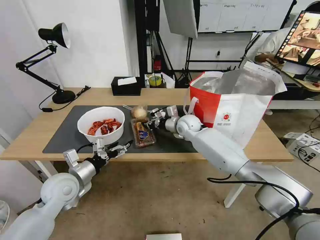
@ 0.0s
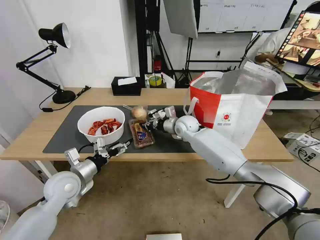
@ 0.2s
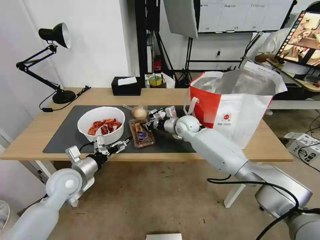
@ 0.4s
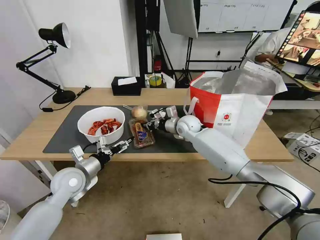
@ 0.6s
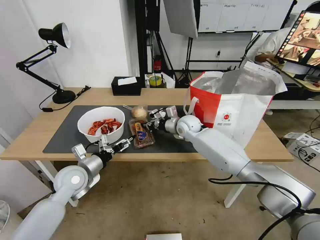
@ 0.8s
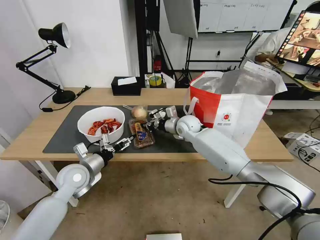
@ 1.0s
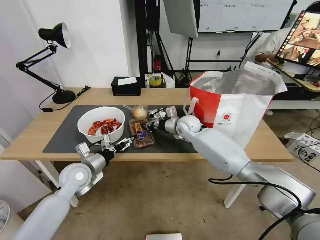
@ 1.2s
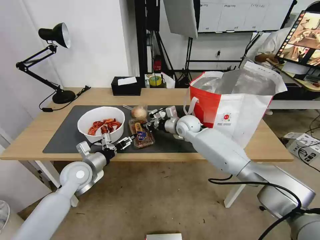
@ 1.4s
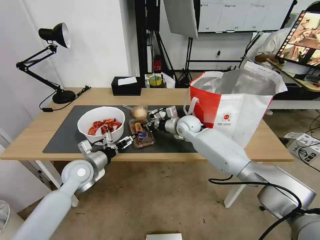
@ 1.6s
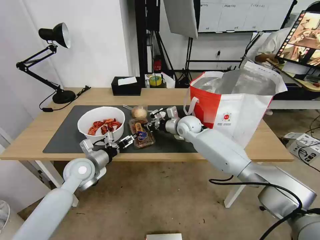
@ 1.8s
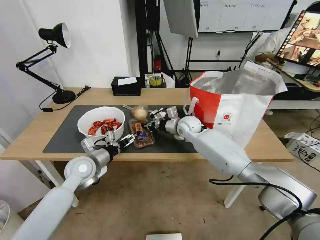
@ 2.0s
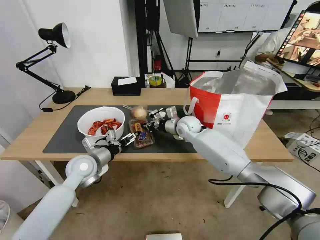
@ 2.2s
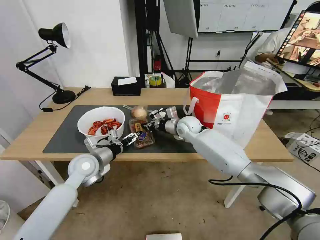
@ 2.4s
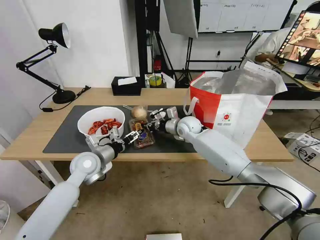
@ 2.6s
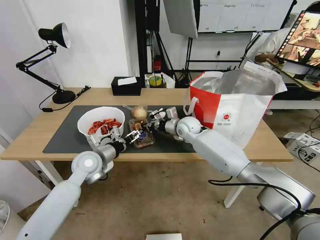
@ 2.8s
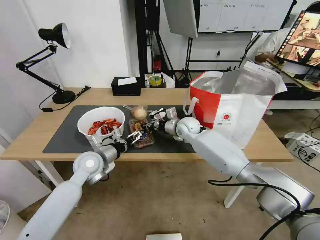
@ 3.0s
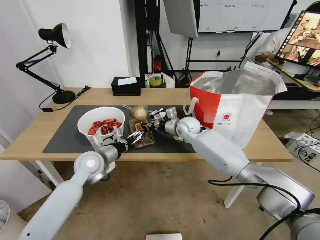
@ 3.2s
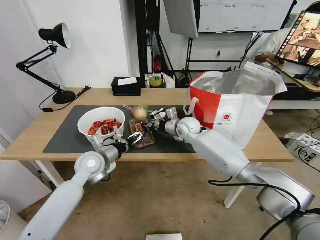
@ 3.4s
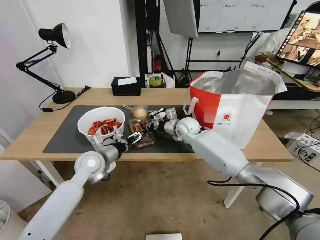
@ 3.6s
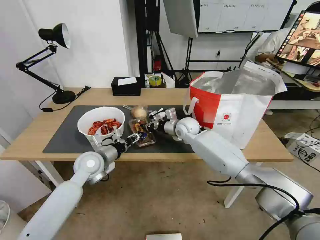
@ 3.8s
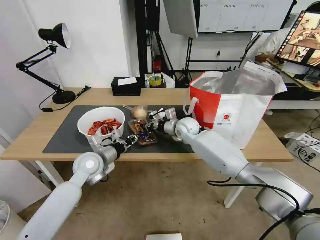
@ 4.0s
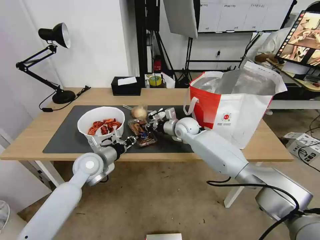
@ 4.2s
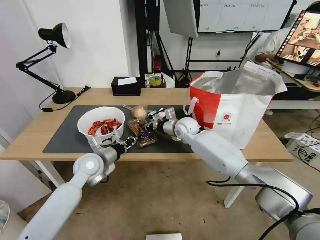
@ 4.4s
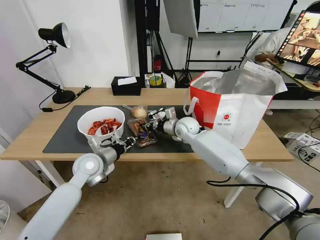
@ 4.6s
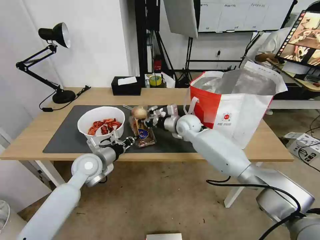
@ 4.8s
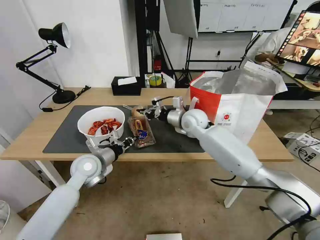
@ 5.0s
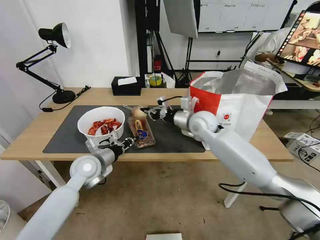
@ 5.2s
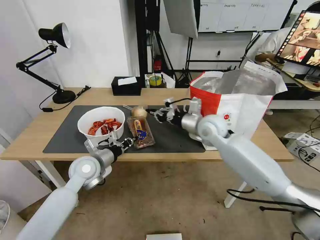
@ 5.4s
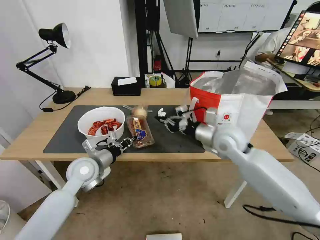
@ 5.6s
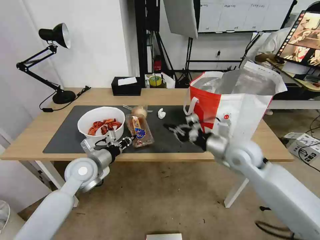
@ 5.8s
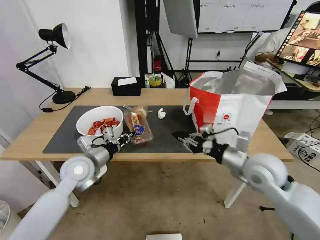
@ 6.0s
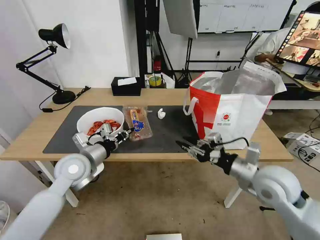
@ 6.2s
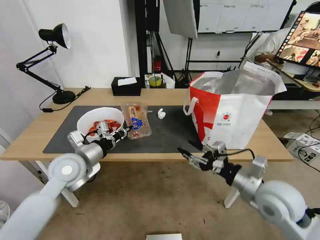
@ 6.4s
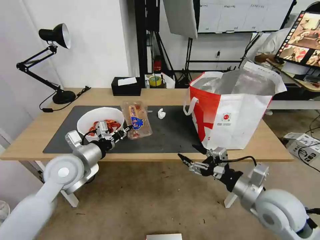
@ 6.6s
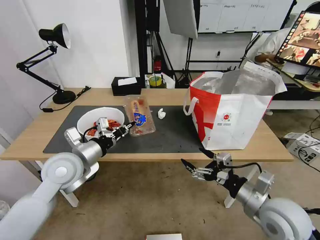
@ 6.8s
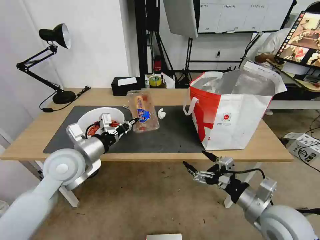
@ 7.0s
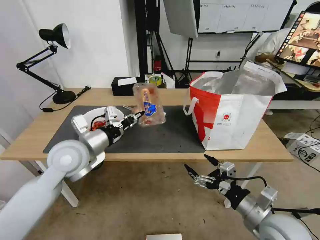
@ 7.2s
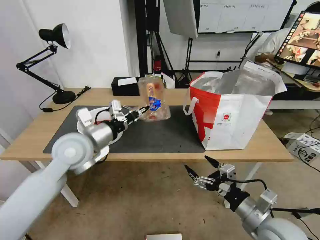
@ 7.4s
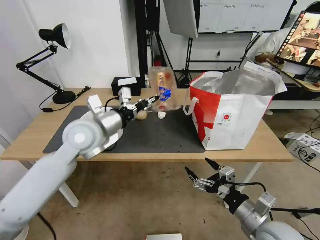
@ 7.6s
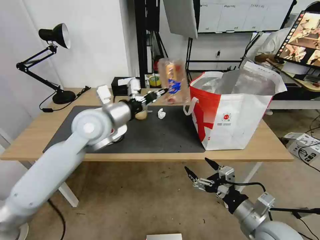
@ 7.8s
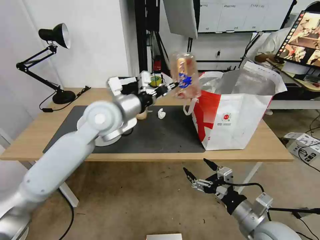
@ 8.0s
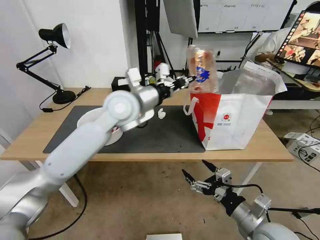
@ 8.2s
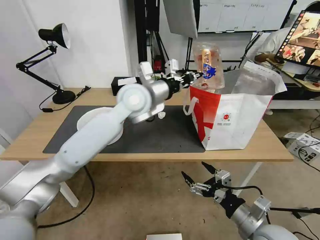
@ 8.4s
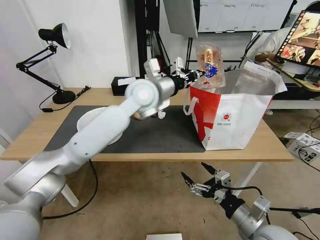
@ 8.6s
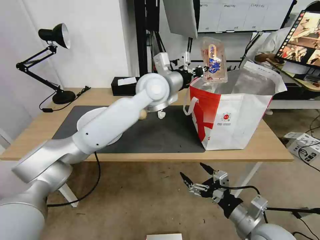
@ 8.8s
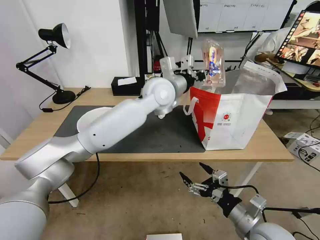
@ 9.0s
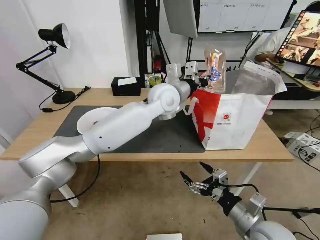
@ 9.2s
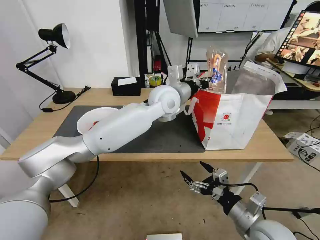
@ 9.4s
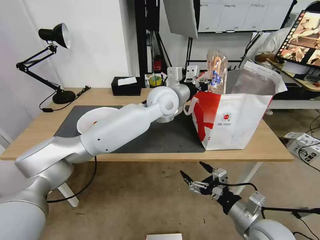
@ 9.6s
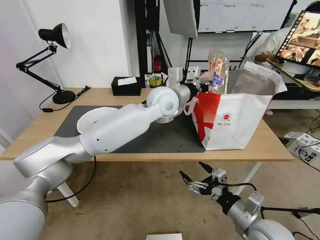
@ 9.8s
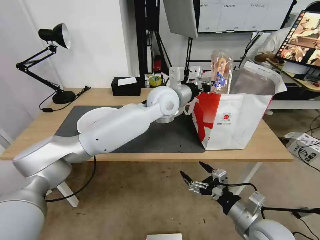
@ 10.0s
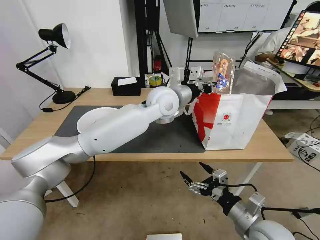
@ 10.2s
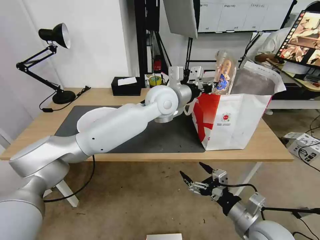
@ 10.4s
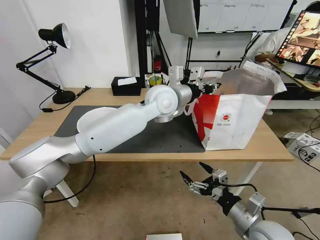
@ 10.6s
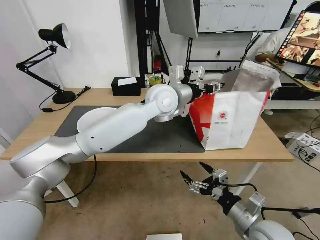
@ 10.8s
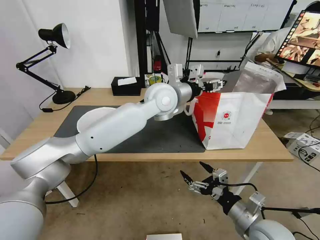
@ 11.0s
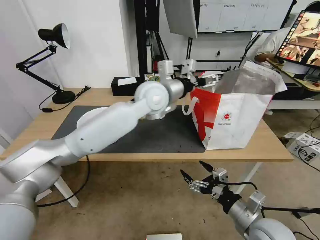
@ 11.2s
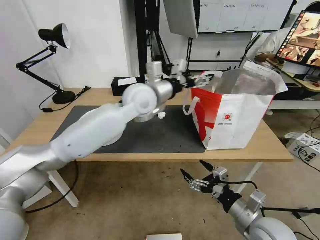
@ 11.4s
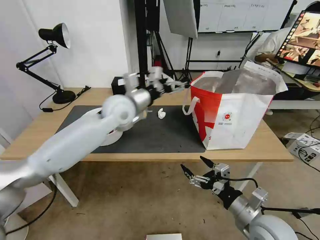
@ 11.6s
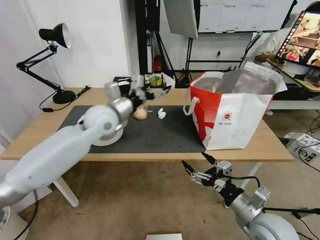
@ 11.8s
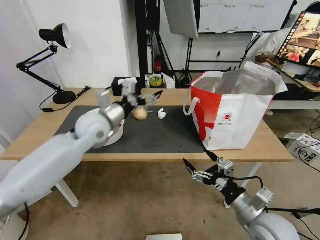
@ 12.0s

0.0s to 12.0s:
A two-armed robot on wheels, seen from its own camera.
Task of the whole recording: Pick up the trash from the table and place it into the takeout bag.
0.0s to 1.6s: The left gripper is displaced forward by about 5 cm.
1.6s to 3.0s: The grippers move only a little.
3.0s to 4.4s: The left gripper closes up.
4.4s to 6.0s: The right gripper is displaced backward and to the right by roughly 30 cm.
6.0s to 7.6s: The right gripper heads backward and downward, covering some 15 cm, and opens its fingers. The left gripper travels upward by some 10 cm.
7.6s to 9.0s: The left gripper is displaced to the right and forward by some 25 cm.
9.0s to 10.4s: The grippers make only small movements.
10.4s to 12.0s: The left gripper shifts some 20 cm to the left, and opens.

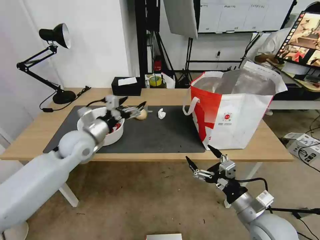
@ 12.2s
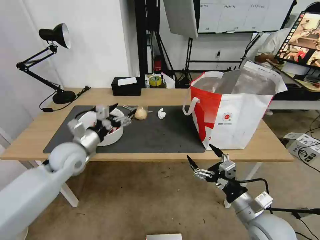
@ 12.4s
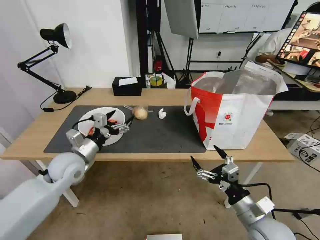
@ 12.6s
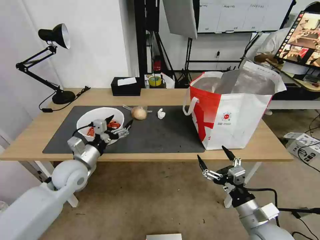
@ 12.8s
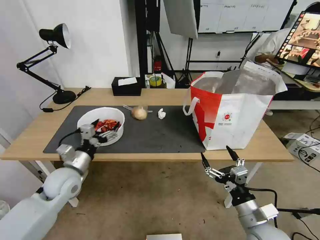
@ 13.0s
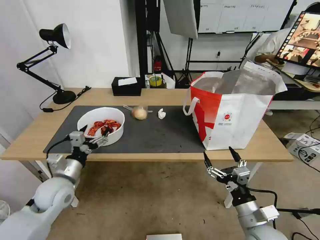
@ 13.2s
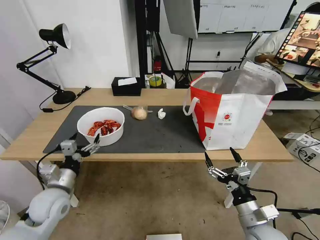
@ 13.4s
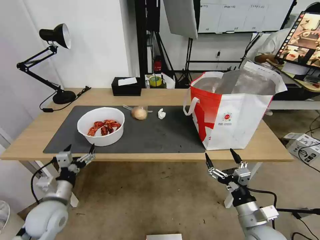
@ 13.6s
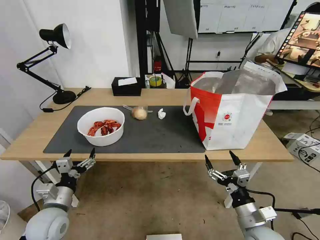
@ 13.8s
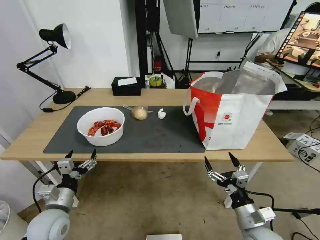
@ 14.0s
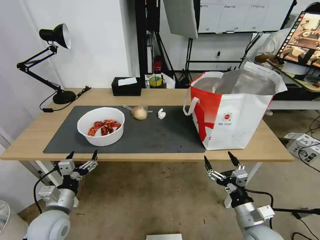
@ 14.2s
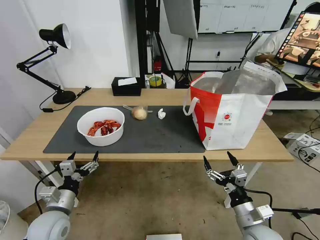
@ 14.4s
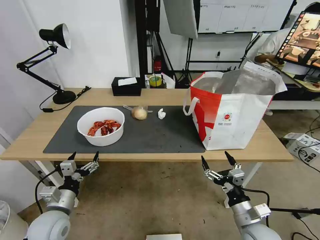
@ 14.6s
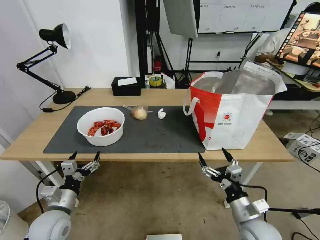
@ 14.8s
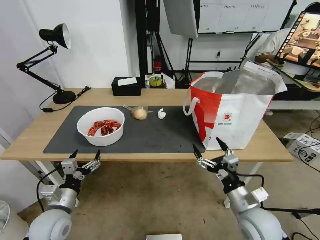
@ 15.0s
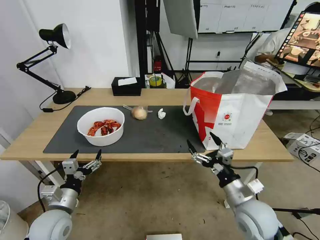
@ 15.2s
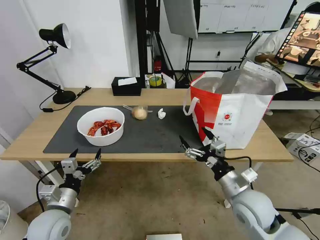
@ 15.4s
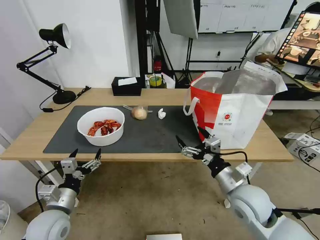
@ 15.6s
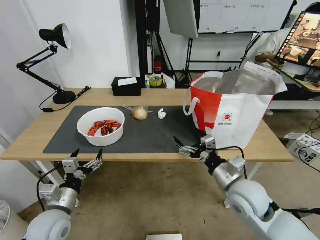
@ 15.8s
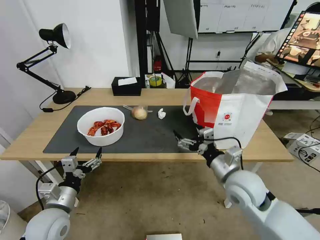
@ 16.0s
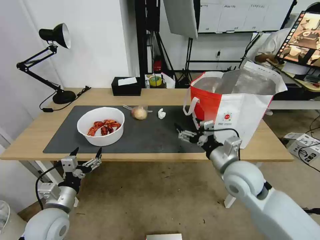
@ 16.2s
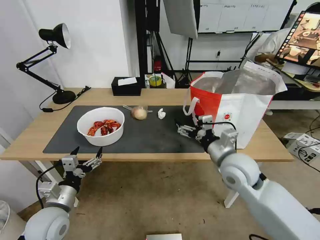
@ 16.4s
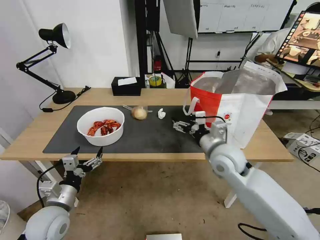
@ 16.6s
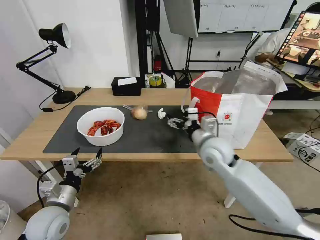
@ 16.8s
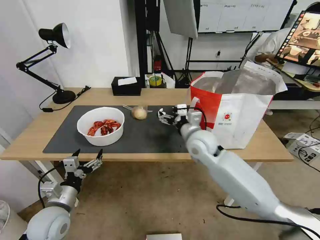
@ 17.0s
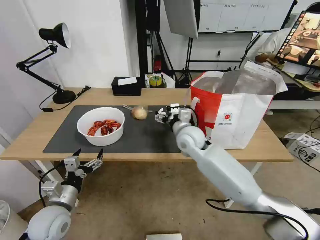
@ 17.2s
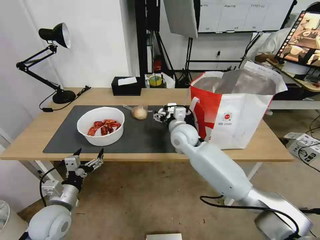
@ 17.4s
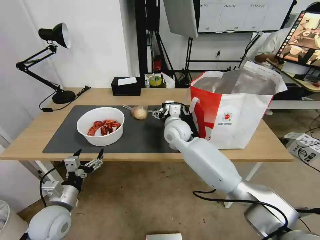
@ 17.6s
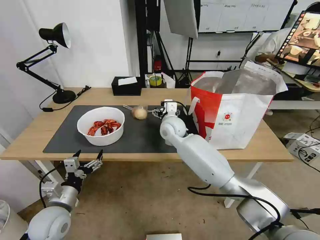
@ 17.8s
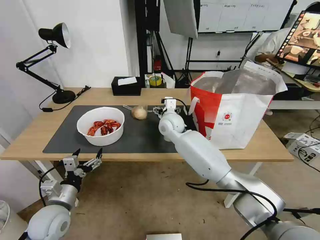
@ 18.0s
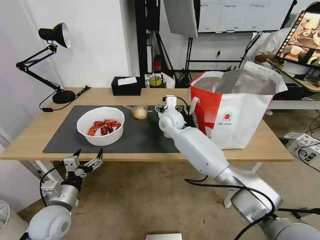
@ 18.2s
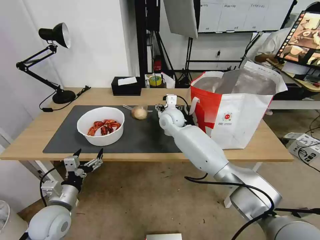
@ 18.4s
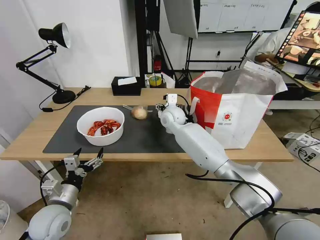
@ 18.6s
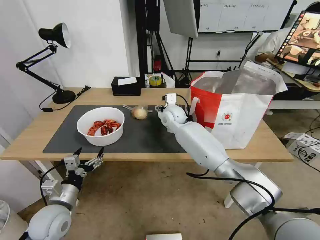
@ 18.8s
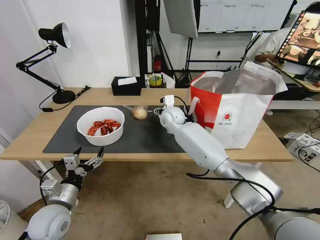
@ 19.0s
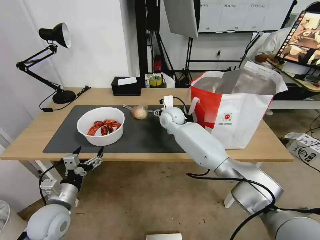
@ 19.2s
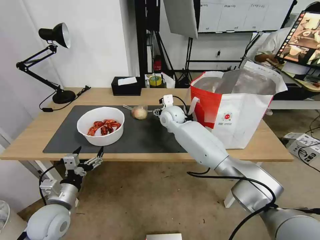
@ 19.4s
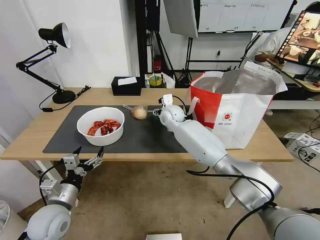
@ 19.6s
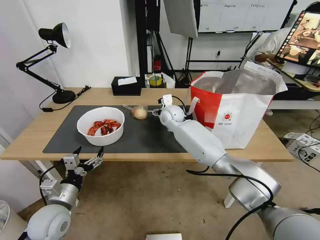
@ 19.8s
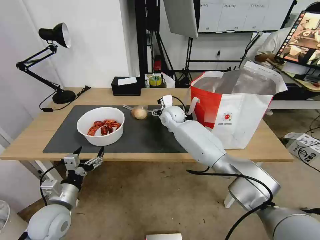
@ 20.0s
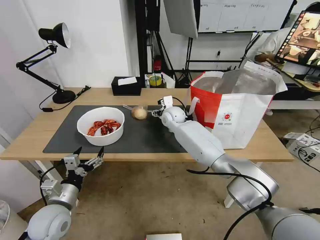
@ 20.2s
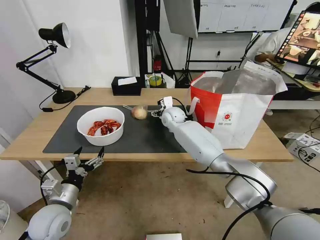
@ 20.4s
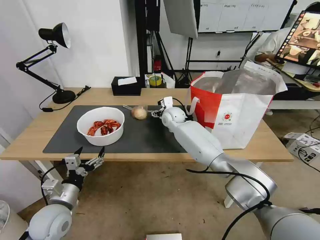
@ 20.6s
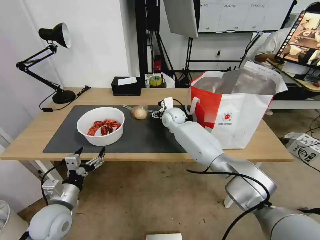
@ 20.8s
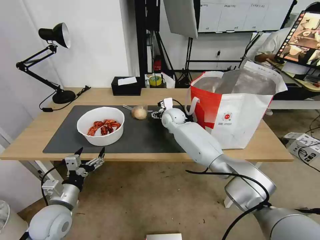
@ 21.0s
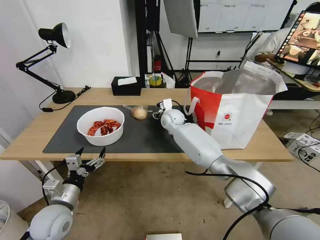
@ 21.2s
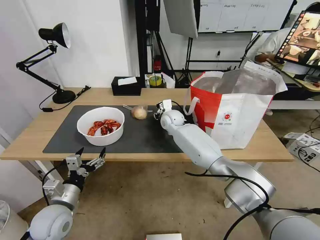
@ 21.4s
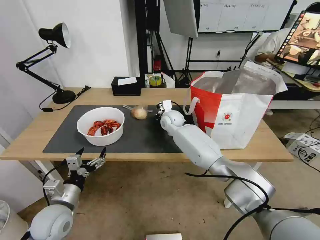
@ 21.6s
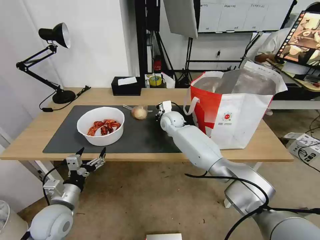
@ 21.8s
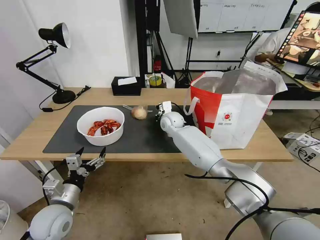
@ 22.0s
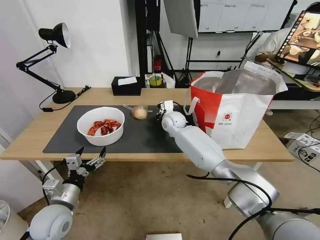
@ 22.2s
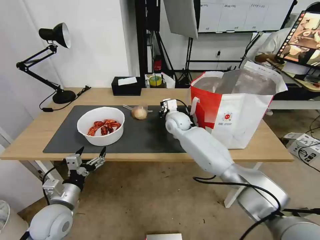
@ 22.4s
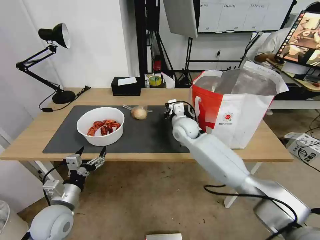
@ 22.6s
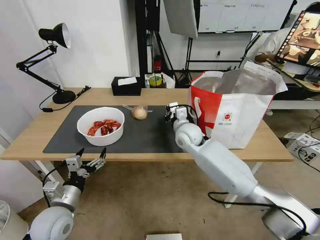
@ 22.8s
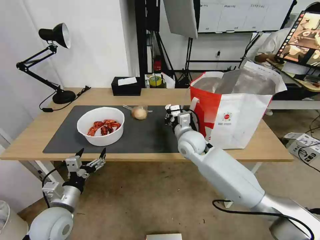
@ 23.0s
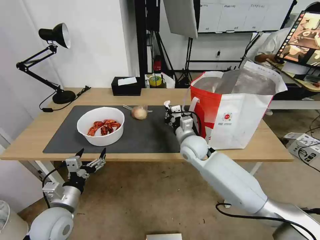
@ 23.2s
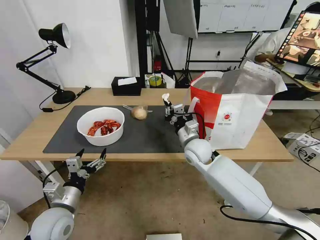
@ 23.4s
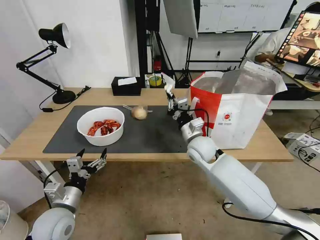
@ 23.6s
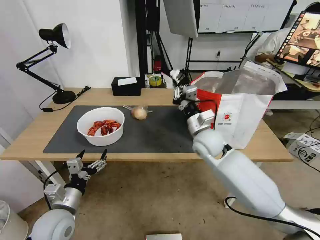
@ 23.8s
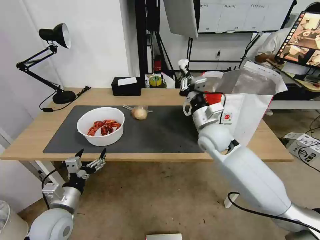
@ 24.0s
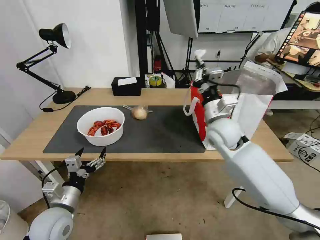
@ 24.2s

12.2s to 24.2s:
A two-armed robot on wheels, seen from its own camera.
Task of the whole recording: Pick up the trash from the table and place it into the takeout bag.
12.2s to 13.8s: The right gripper is displaced downward by about 5 cm, while the left gripper shifts roughly 25 cm backward and downward.
13.8s to 15.2s: The right gripper moves forward, approximately 5 cm.
15.2s to 16.6s: The right gripper shifts approximately 15 cm forward, upward and to the left.
16.6s to 18.2s: The right gripper shifts some 25 cm forward and to the left.
18.2s to 19.8s: The grippers stay close to where they were, moving slightly.
19.8s to 21.2s: There are only small adjustments of the grippers.
21.2s to 22.6s: The right gripper goes some 5 cm backward, and closes up.
22.6s to 24.2s: The right gripper moves backward, to the right and upward, about 15 cm.
